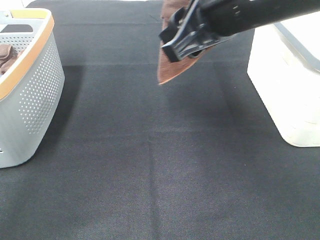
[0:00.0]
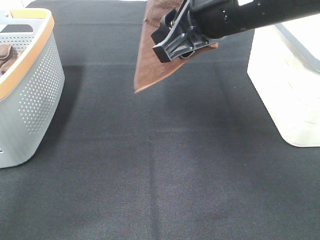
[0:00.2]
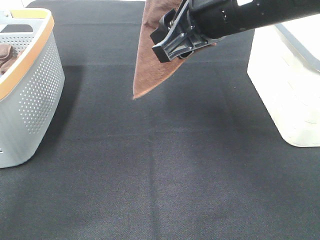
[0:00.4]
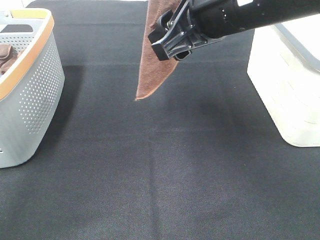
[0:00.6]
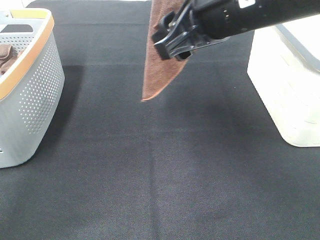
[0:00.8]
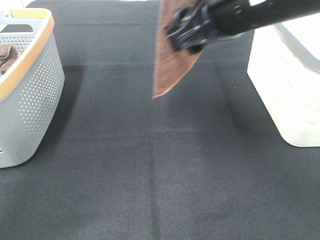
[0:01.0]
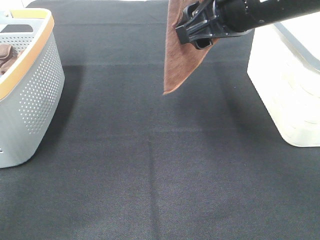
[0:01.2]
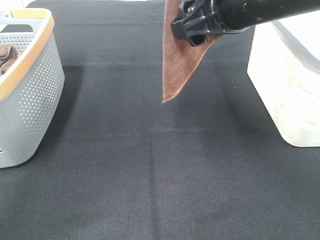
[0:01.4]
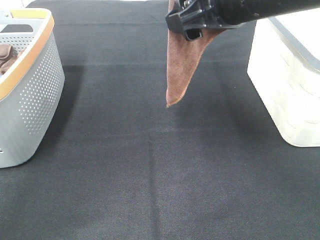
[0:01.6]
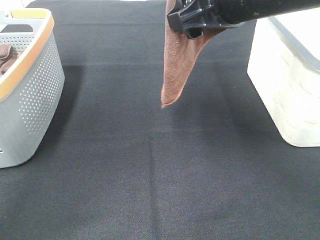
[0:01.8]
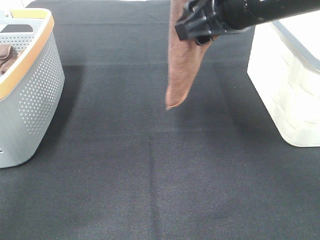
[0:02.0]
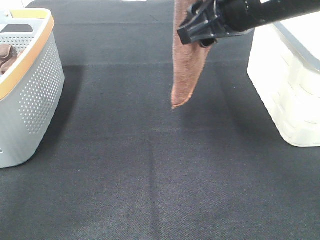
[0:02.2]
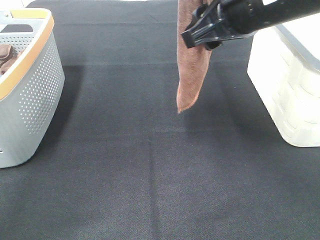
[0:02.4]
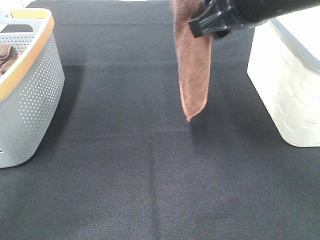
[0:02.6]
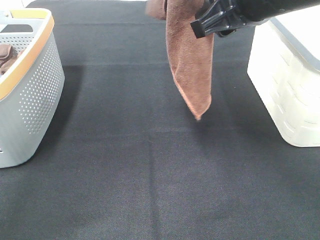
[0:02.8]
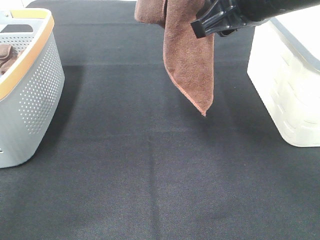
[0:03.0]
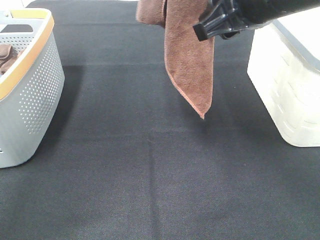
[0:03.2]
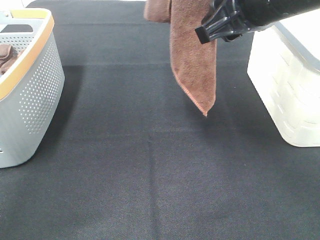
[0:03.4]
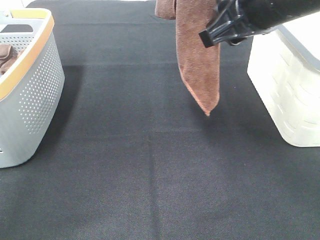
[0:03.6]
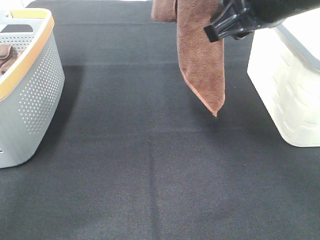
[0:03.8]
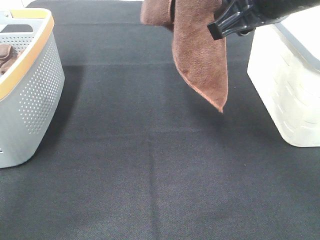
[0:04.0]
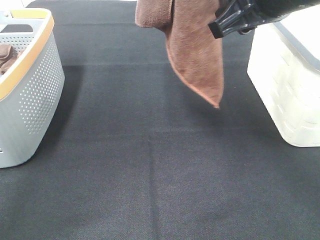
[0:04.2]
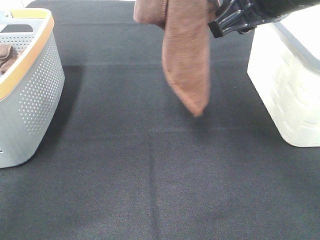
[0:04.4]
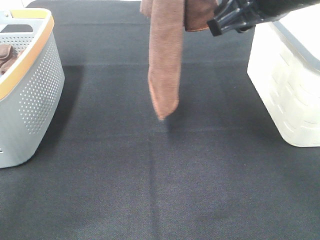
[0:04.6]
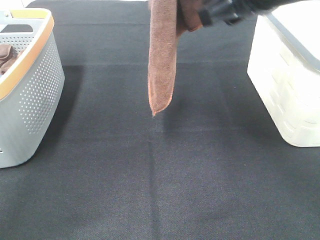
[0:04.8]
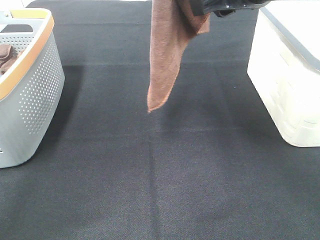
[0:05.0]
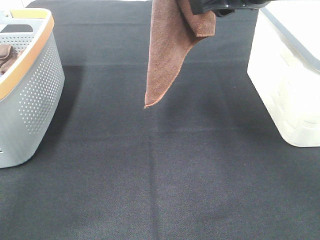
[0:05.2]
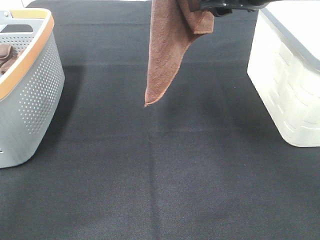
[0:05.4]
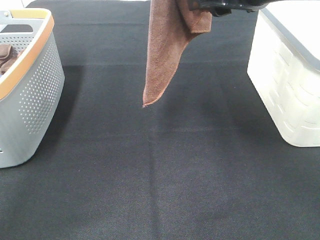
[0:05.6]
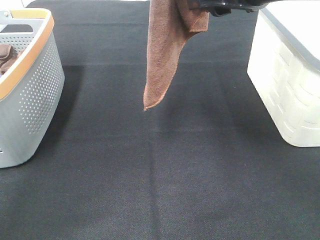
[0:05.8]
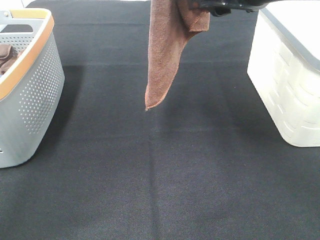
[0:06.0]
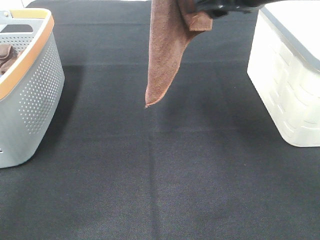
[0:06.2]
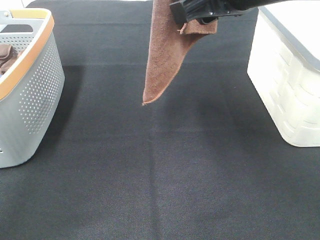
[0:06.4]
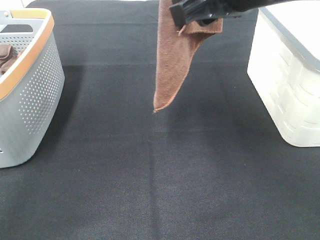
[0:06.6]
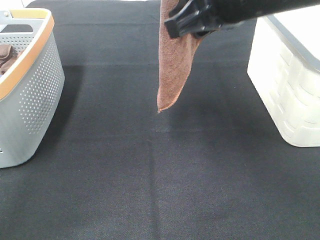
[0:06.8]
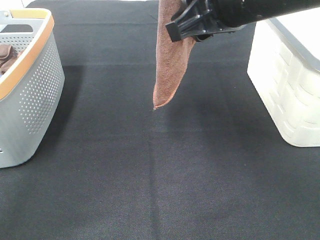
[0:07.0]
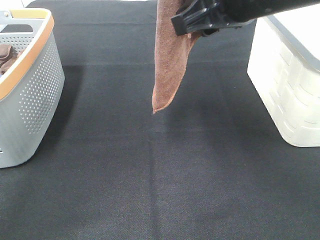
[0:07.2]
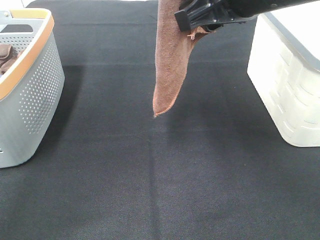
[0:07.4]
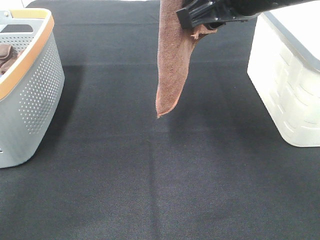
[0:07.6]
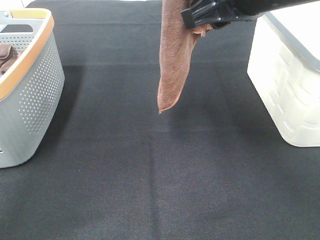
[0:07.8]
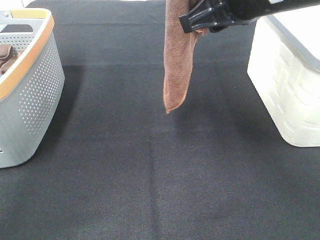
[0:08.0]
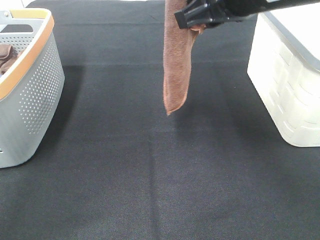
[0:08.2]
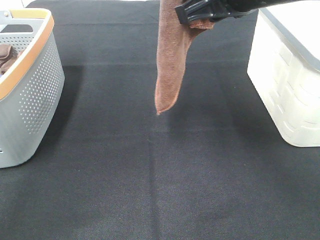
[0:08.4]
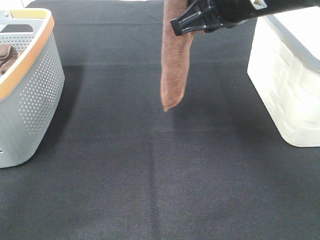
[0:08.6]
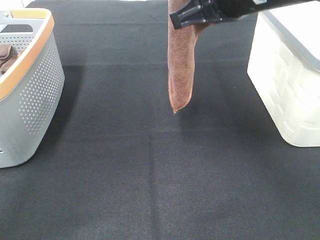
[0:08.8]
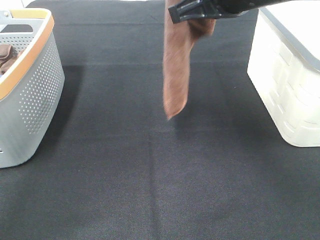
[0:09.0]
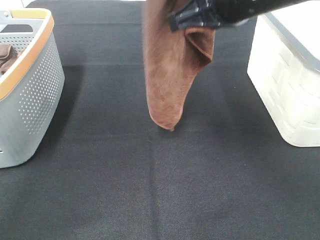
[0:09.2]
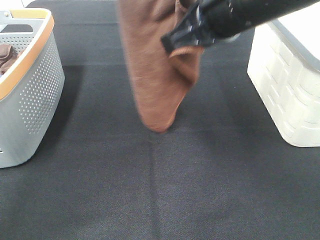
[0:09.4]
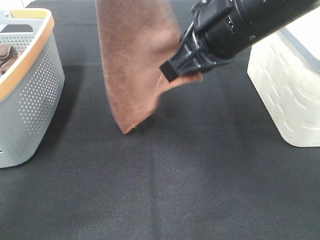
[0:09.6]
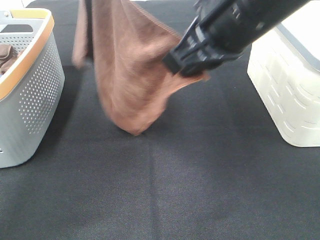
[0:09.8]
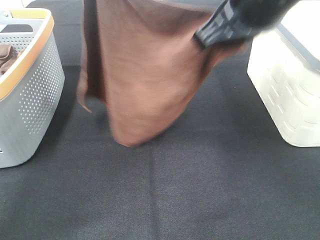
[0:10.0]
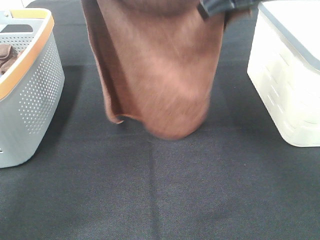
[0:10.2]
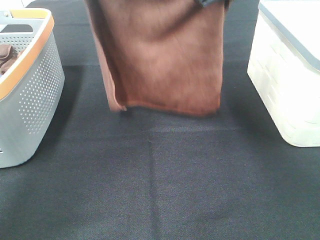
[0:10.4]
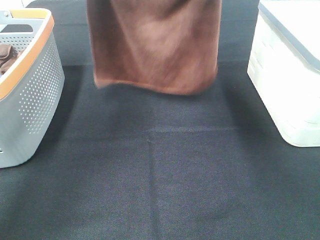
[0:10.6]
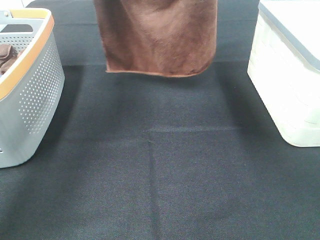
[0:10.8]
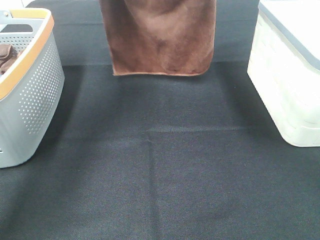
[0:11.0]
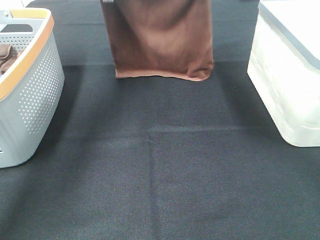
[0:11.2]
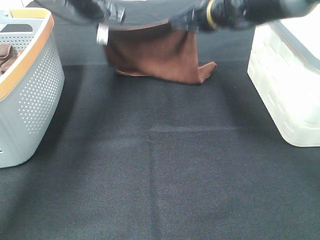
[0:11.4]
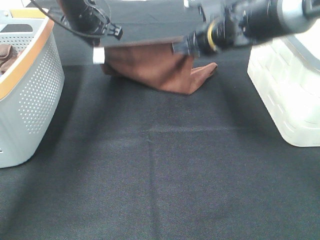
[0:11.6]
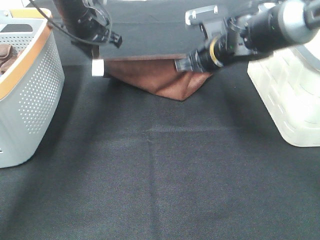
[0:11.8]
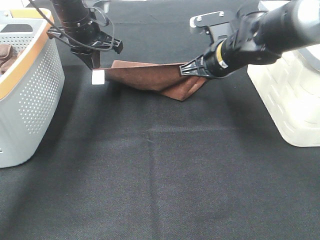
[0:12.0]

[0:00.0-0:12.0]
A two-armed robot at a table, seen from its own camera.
Task of the whole recording: Remove the towel and place it.
Step, 0:00.0 to 0:05.8: Right hand: grab a corner of the brown towel and straighten it.
Step, 0:06.0 to 0:09.4: Right hand: spread the brown towel flat on the table.
0:00.0 to 0:07.6: There are only small adjustments of the grippers.
0:07.6 to 0:09.0: The right gripper closes up.
0:09.0 to 0:10.4: The left gripper moves downward, forward and to the left, roughly 15 cm.
0:10.4 to 0:12.0: The right gripper goes about 20 cm downward and forward, while the left gripper travels downward by some 20 cm.

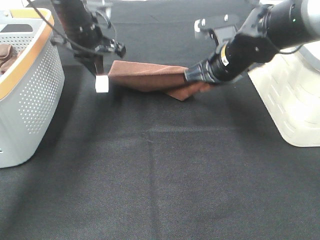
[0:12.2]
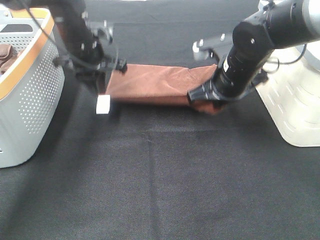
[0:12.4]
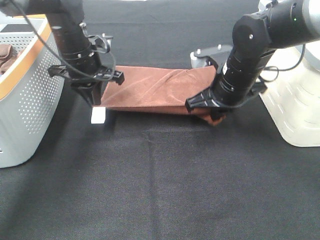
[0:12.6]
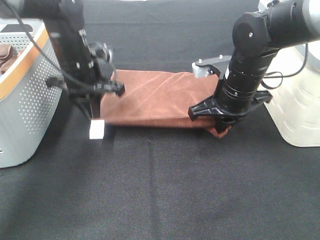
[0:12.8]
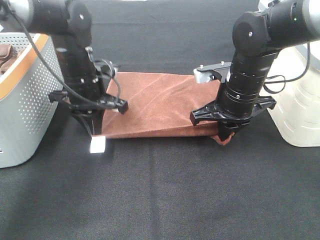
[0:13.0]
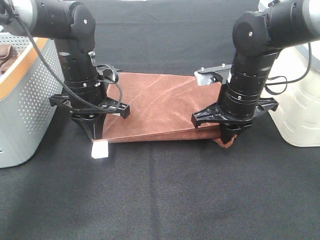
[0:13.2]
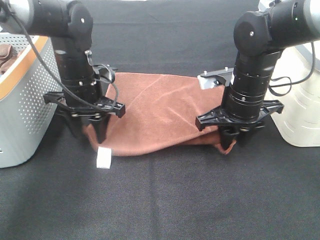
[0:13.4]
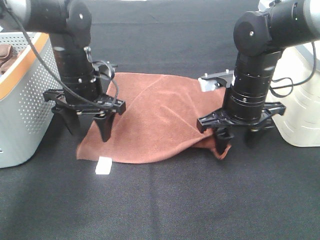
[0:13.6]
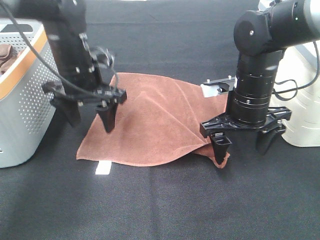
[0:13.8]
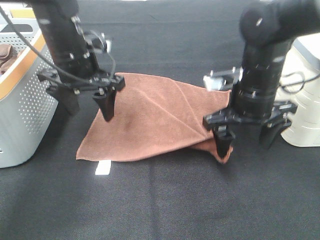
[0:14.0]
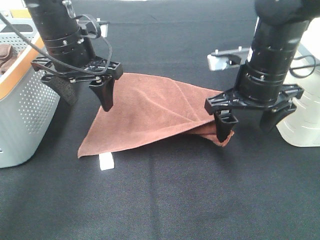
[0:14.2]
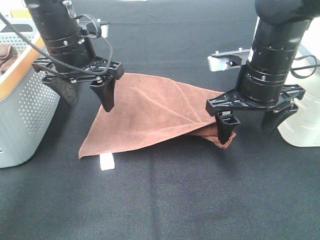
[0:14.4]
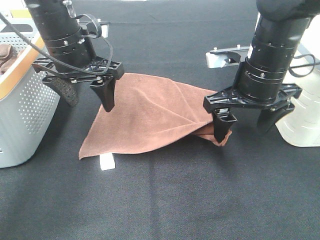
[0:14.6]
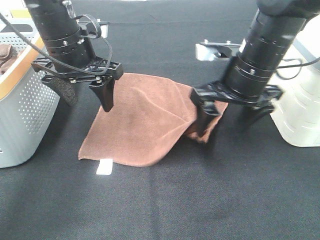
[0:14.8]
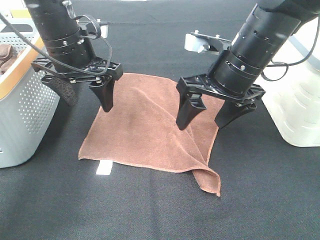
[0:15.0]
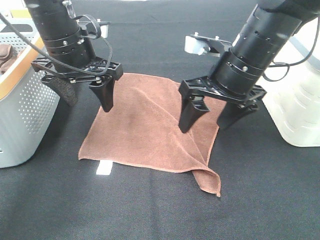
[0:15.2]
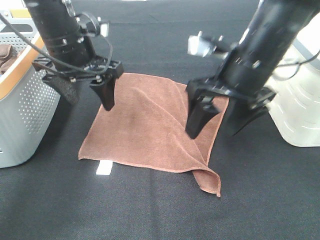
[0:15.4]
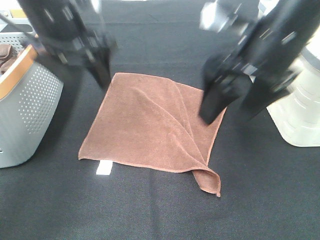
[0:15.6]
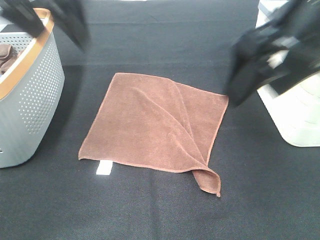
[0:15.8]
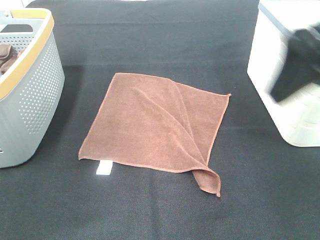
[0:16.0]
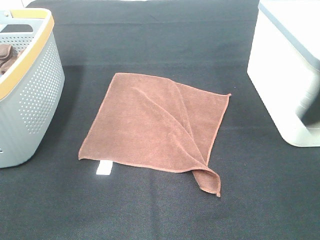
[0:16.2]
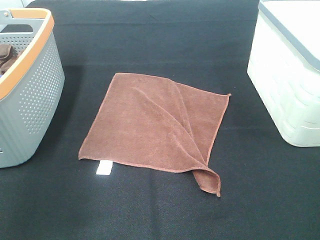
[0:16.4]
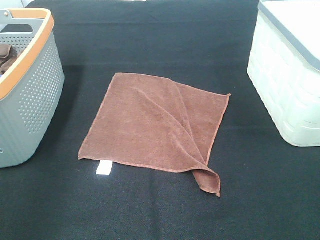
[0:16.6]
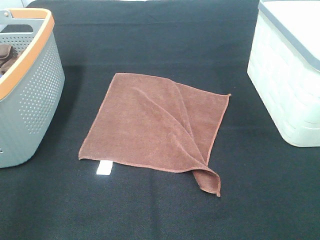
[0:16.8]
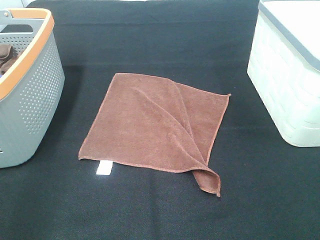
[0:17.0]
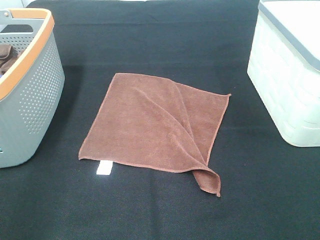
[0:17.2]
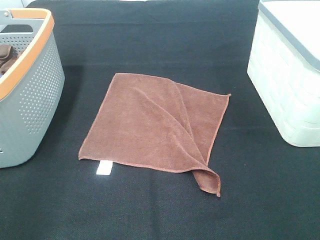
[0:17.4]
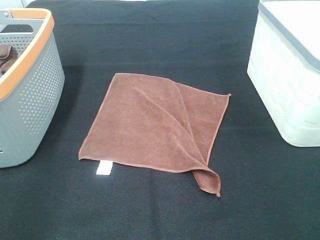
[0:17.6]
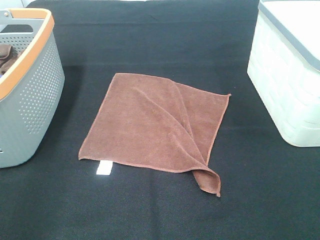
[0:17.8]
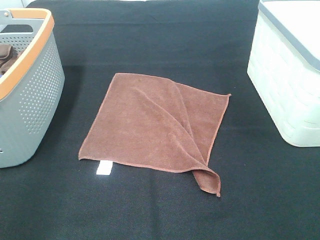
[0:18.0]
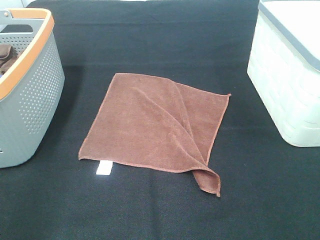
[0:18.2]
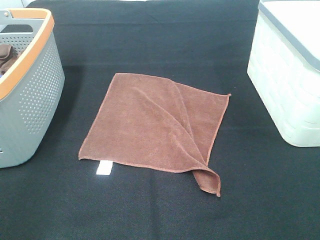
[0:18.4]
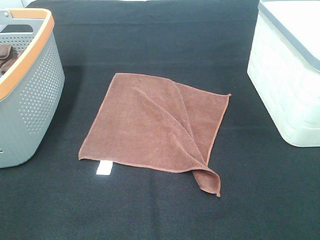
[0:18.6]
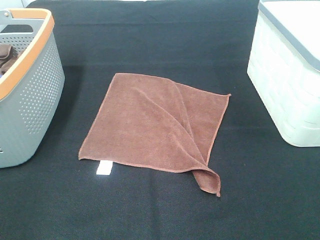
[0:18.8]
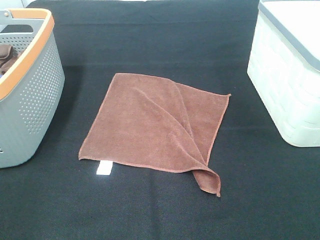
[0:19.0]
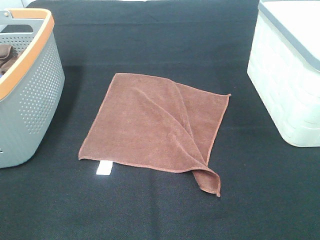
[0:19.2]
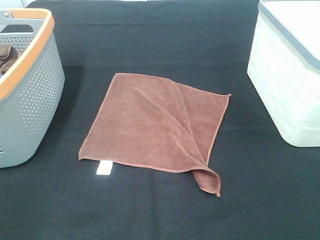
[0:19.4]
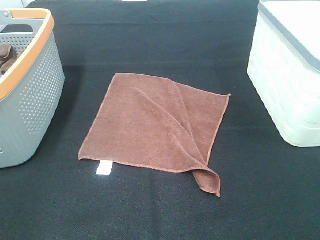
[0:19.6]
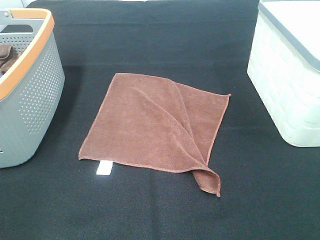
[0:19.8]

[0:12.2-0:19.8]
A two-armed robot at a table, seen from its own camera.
Task of the whole recording: Remove the towel and place it.
0:12.2 to 0:13.8: The two grippers go roughly 10 cm backward. The left gripper opens; the right gripper opens.
0:13.8 to 0:15.2: The right gripper moves upward, about 5 cm.
0:15.2 to 0:16.8: The left gripper heads backward and to the left, covering some 35 cm, while the right gripper travels backward and to the right by roughly 30 cm.

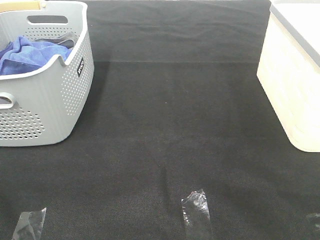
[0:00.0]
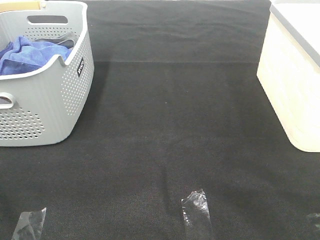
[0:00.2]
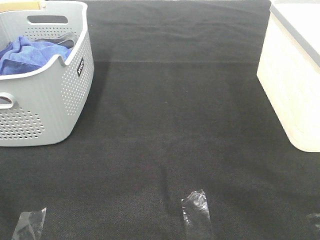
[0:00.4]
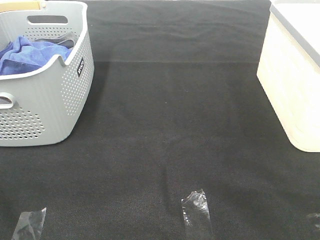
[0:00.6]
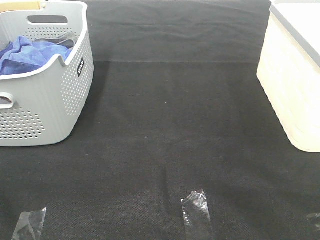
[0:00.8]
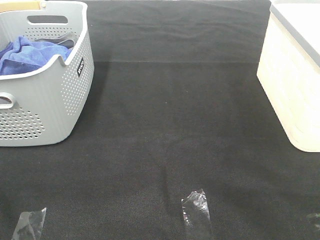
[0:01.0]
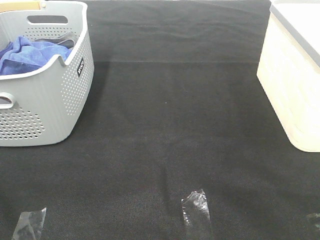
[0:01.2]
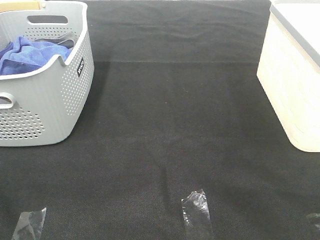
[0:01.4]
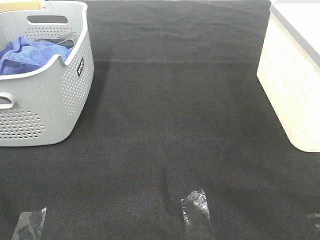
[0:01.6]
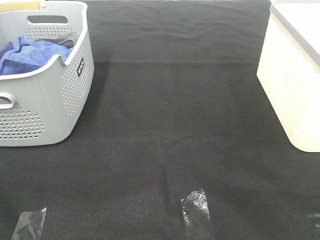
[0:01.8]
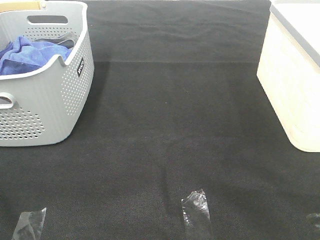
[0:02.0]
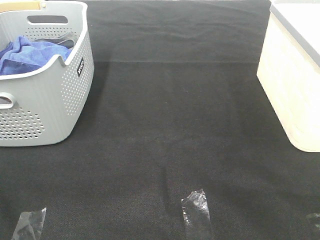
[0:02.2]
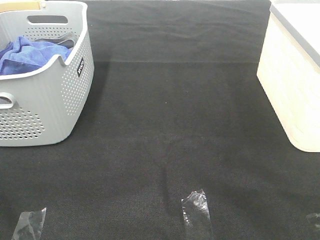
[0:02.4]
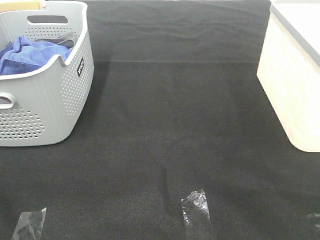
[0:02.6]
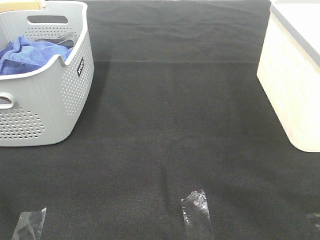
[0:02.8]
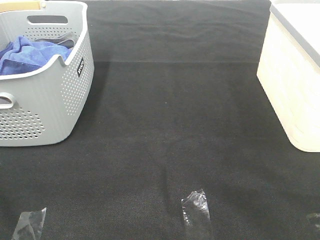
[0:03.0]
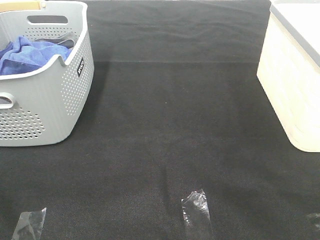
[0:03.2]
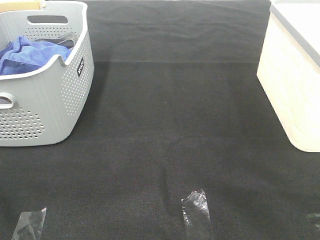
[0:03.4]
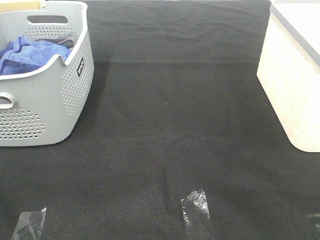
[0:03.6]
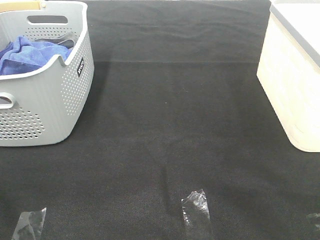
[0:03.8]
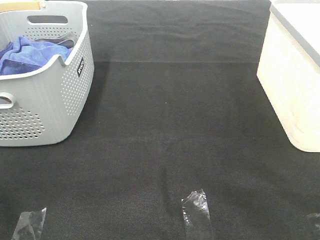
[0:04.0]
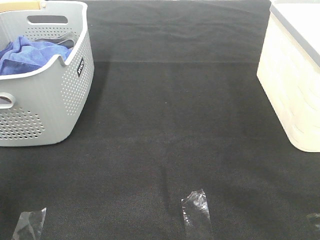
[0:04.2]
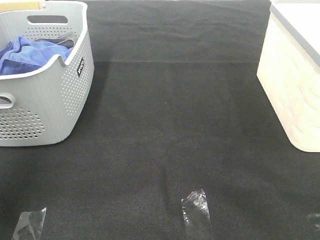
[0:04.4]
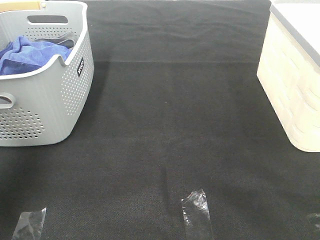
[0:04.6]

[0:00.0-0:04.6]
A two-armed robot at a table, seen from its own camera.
Task of the whole recording: Remove the towel and place it.
0:00.0 to 0:03.0: Both grippers stay put.
0:03.0 to 0:04.6: The left gripper travels forward and upward by about 30 cm.
